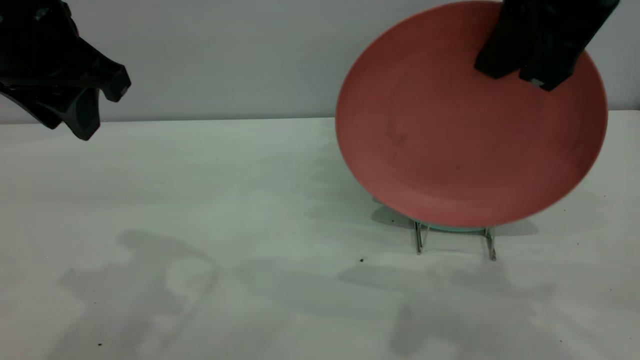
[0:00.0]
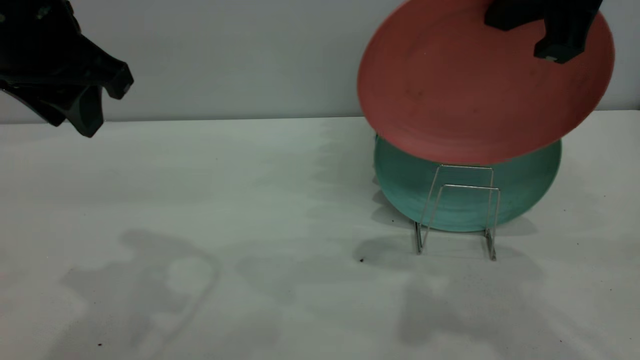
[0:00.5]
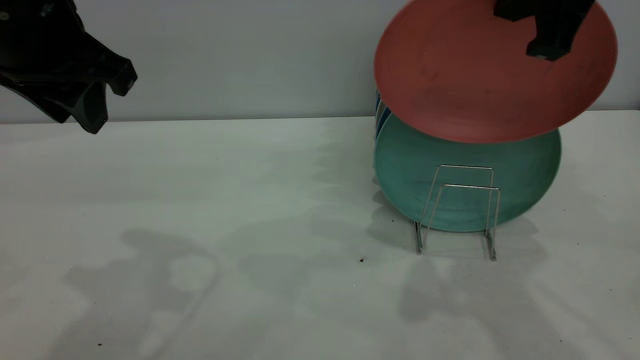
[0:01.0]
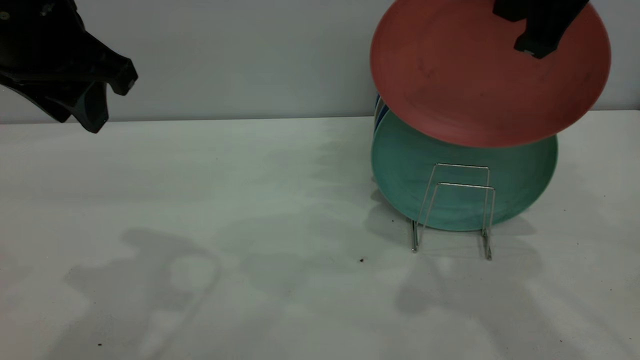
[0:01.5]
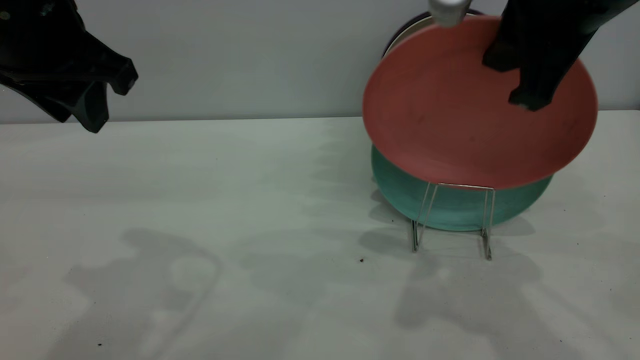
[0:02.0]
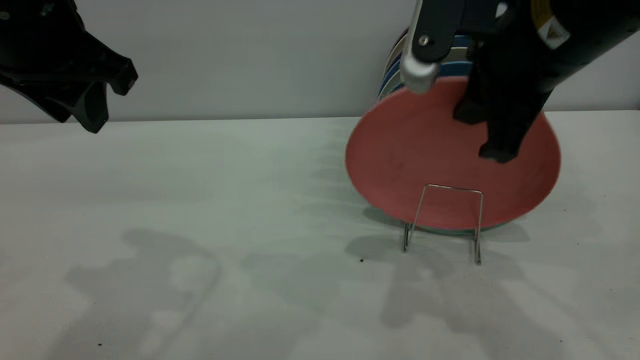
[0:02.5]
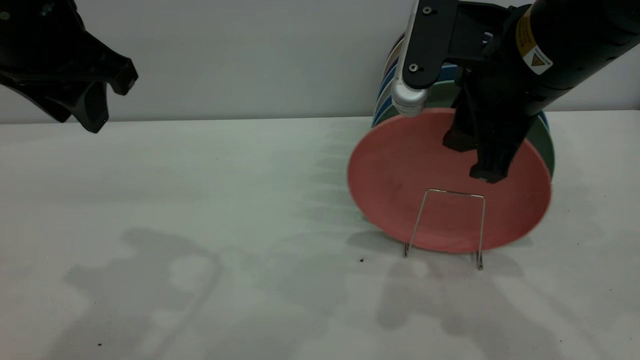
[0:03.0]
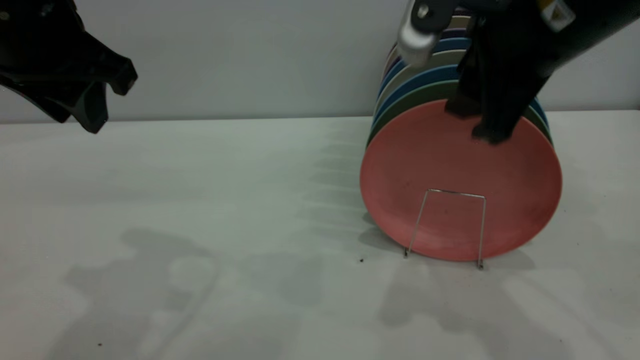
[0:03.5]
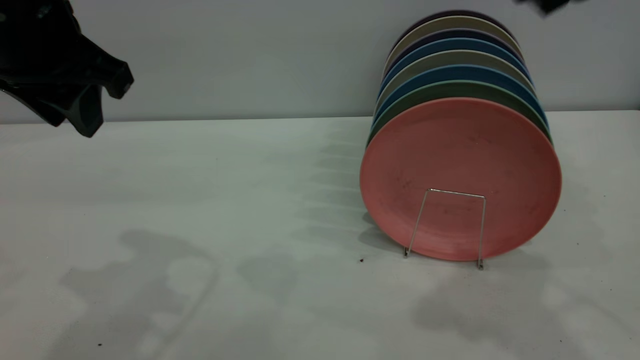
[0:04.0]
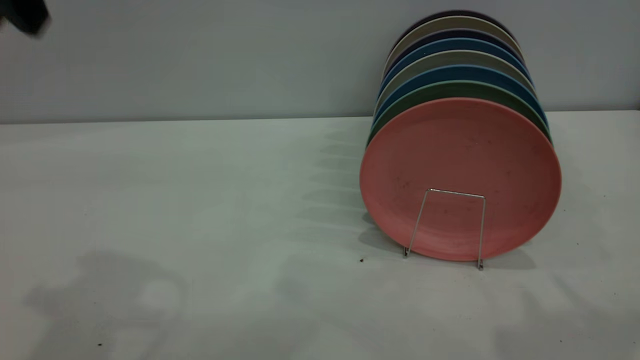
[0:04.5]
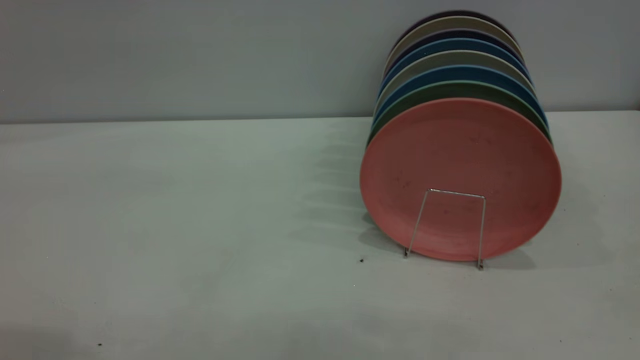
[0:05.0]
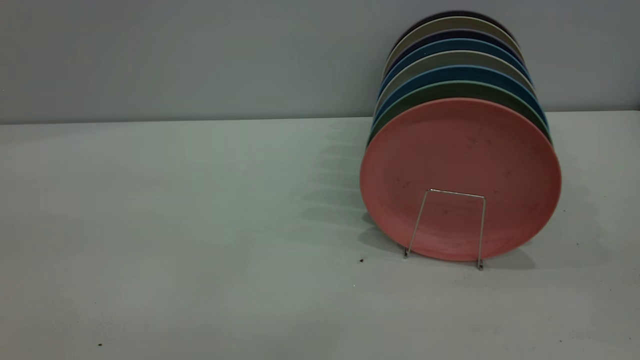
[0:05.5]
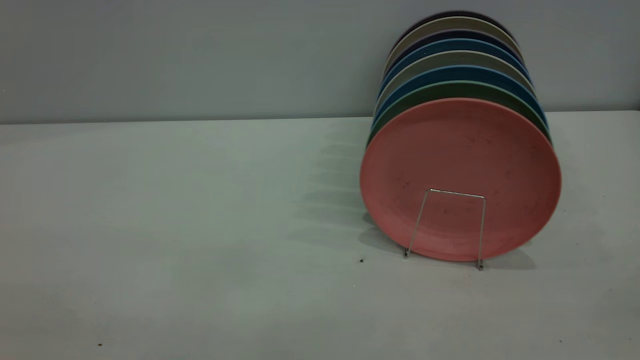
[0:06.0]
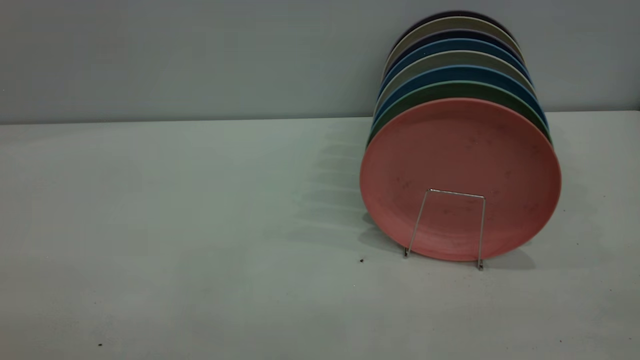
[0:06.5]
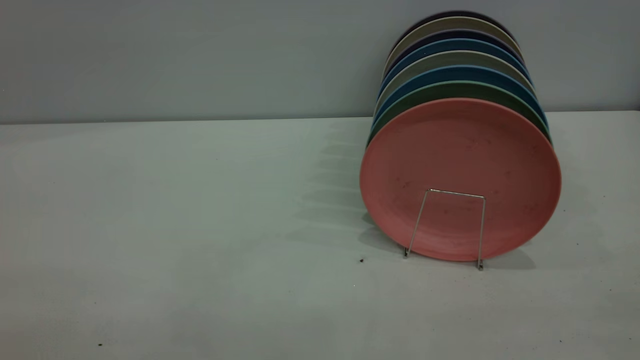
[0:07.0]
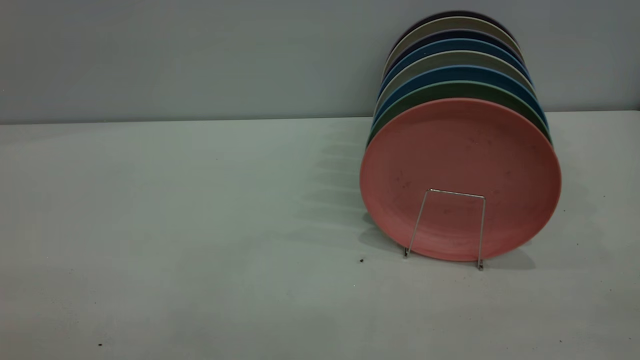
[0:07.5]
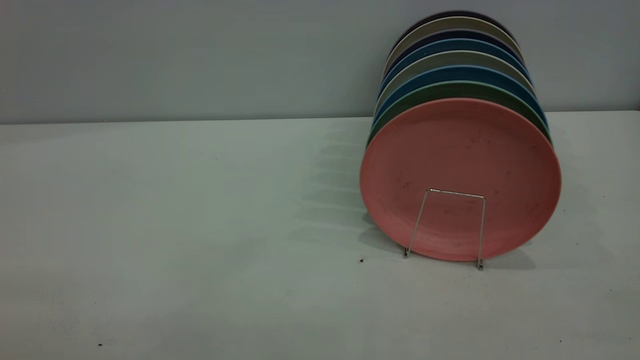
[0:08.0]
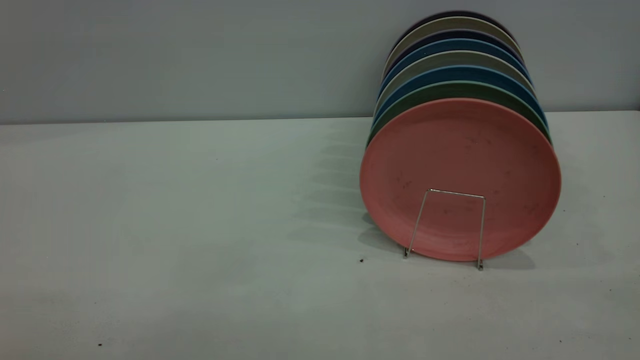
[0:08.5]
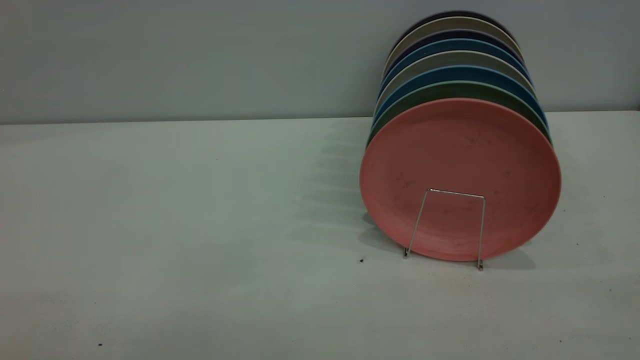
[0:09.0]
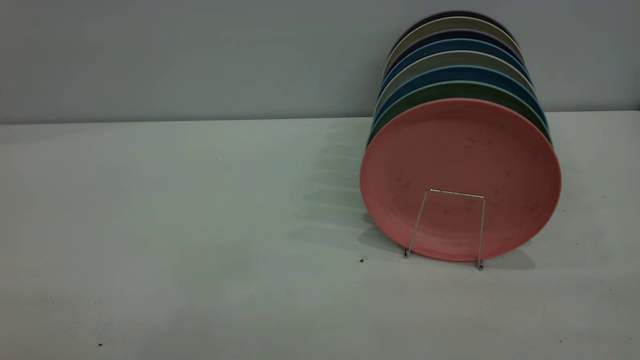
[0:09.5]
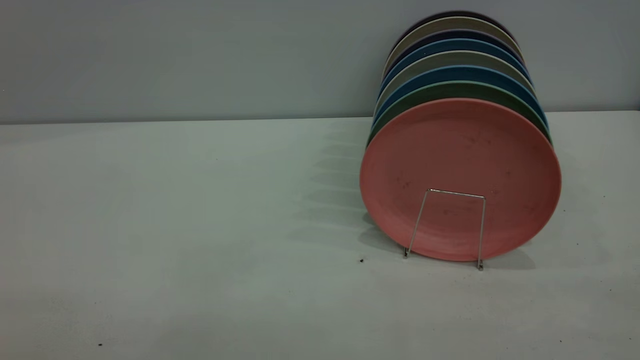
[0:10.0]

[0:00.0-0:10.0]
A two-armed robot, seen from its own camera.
Task of the whole recording: put the plate on the plate rack.
Step, 0:00.0 to 0:03.5: Place the plate on the shelf.
0:00.0 to 0:02.0: There are only small adjustments of the grippers.
0:02.0 to 0:04.0: The right gripper is displaced upward by some 5 cm, and opens up.
0:04.0 to 0:06.0: The left gripper is displaced backward by approximately 30 cm.
